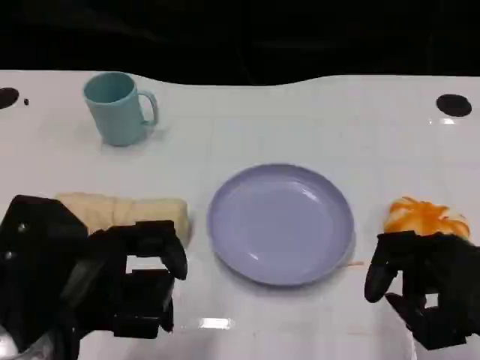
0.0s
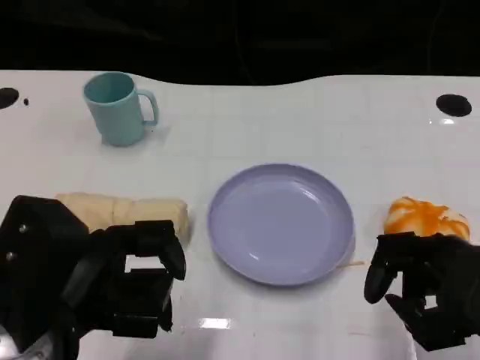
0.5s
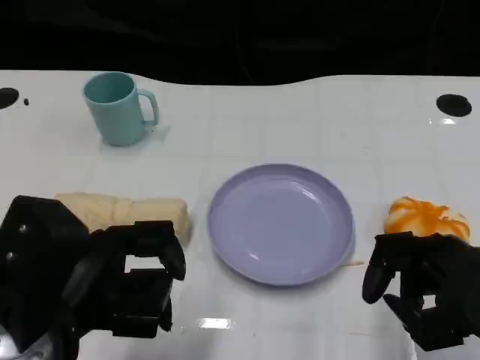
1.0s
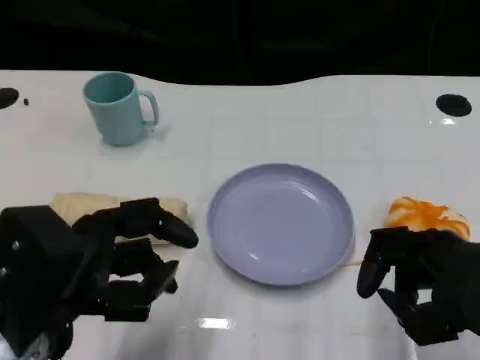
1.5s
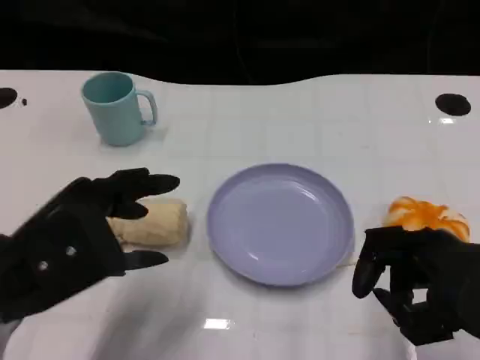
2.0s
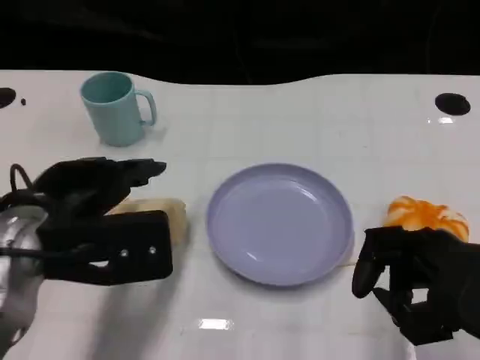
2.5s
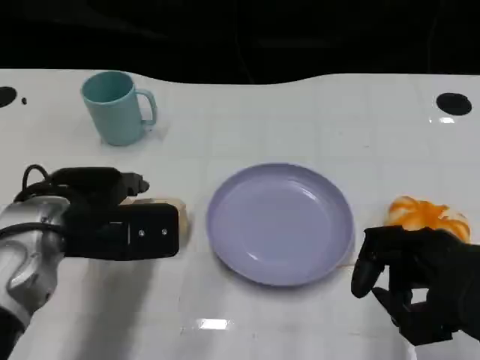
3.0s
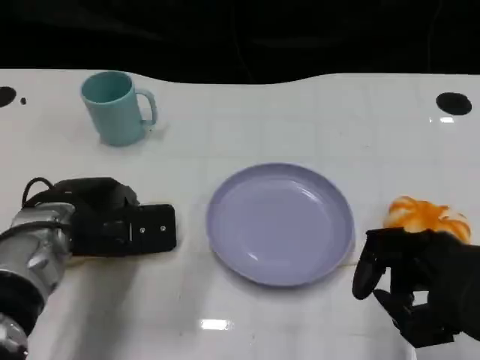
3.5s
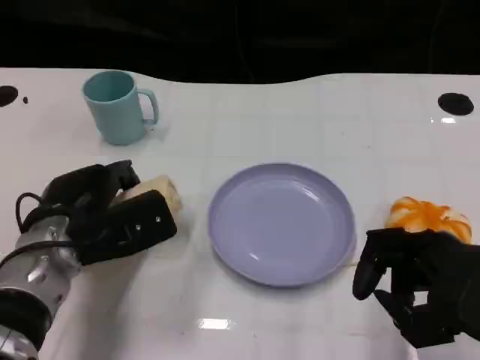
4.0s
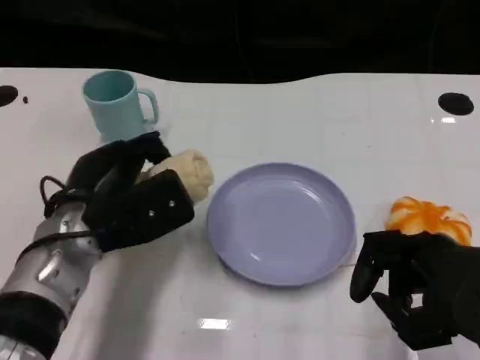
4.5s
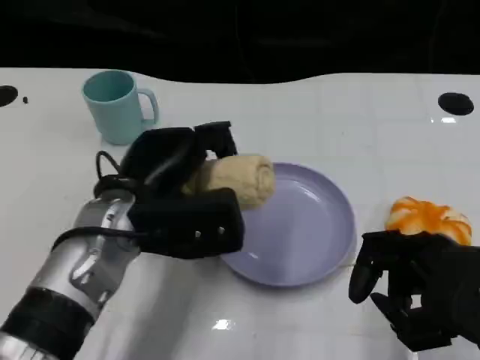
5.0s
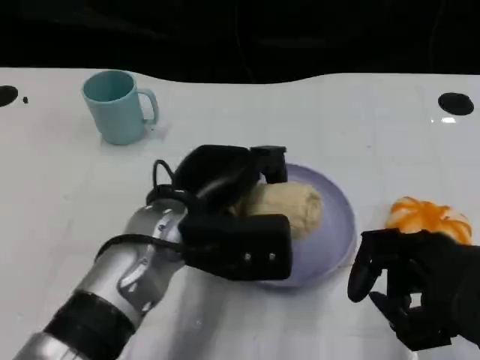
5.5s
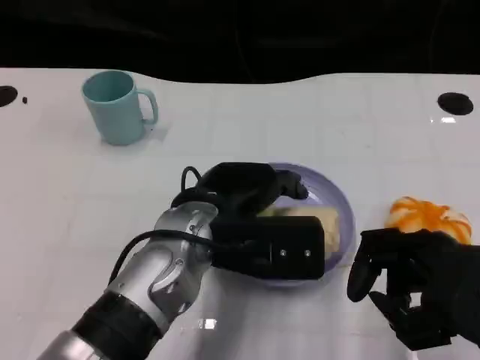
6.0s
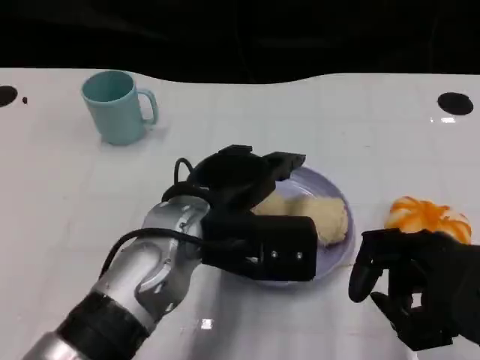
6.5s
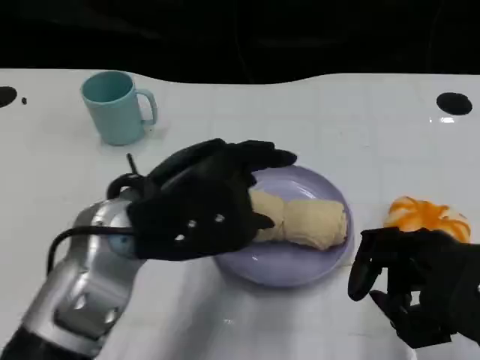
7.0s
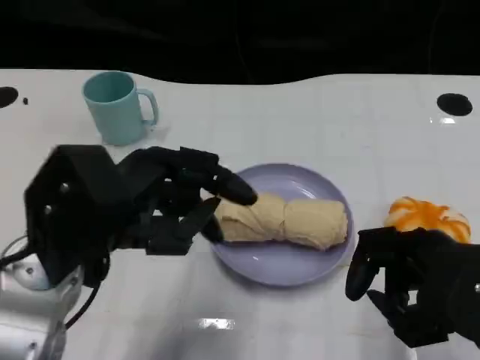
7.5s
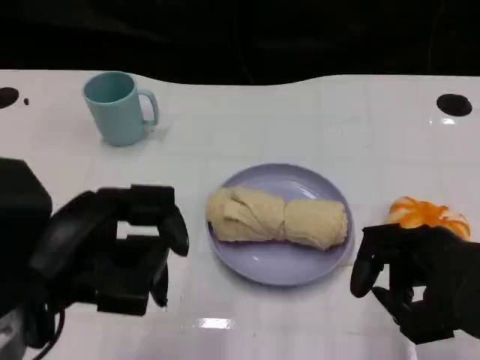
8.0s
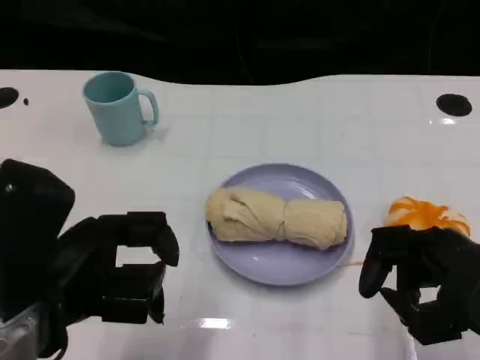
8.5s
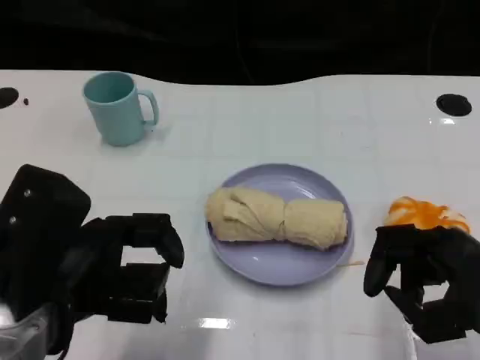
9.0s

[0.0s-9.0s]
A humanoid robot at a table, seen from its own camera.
Task of the whole recording: Grasp the towel on the left side of the plate with the left hand and place it into the plate.
2.0s to 4.5s: The left hand travels forward, downward and to the right by some 10 cm.
4.5s to 7.0s: The left hand is displaced upward by approximately 5 cm, and goes to the right and returns, approximately 10 cm each way.
7.0s to 9.0s: The left hand travels to the left and backward by approximately 10 cm.

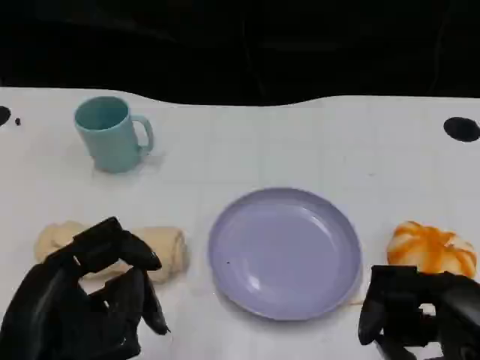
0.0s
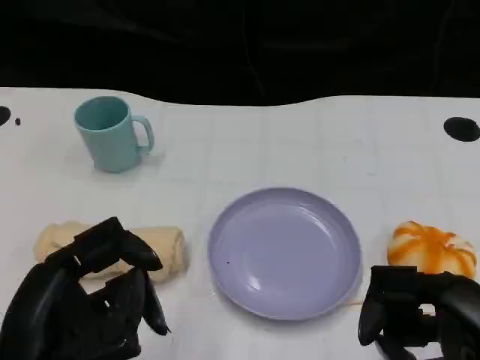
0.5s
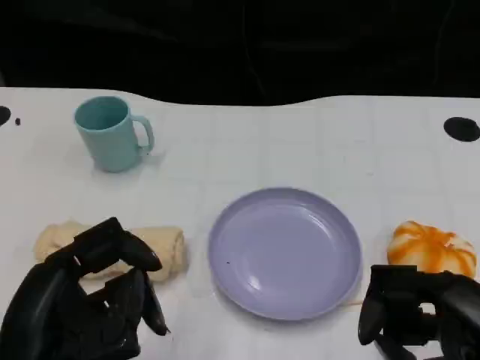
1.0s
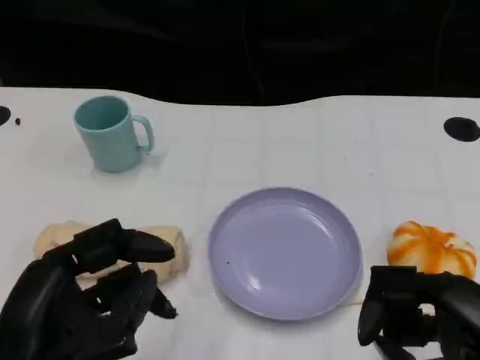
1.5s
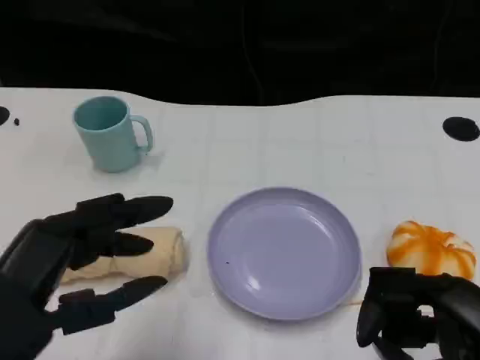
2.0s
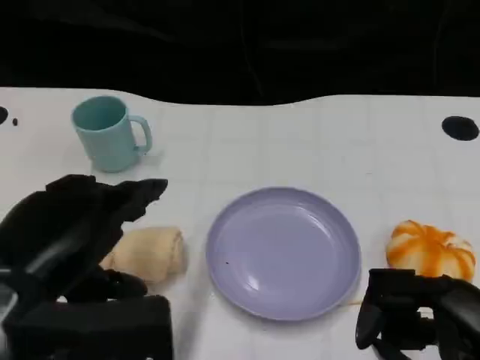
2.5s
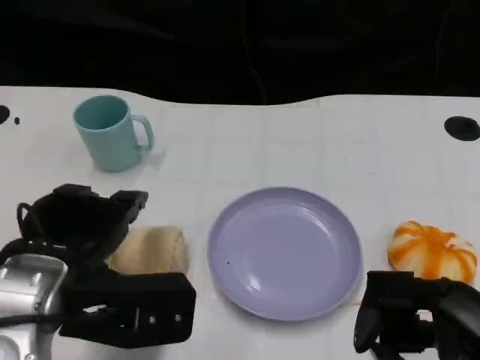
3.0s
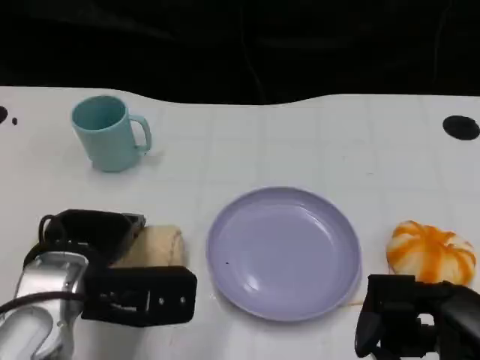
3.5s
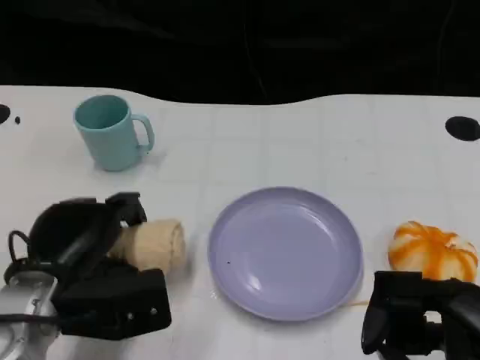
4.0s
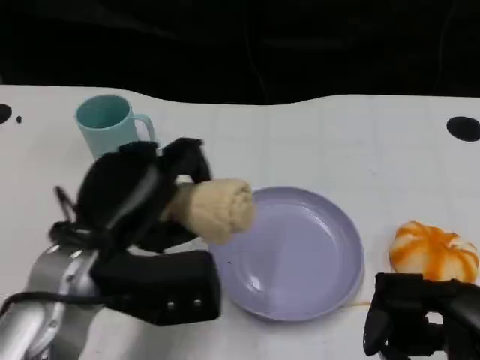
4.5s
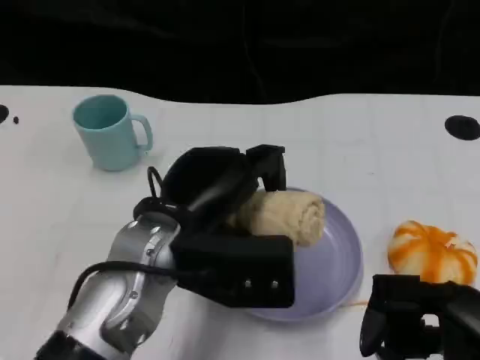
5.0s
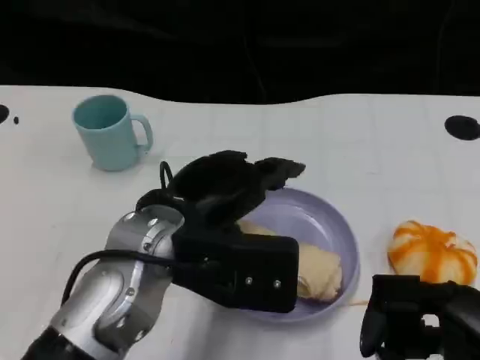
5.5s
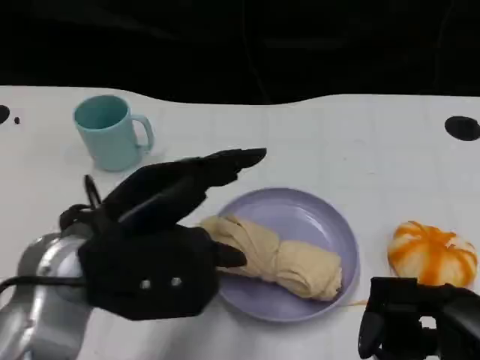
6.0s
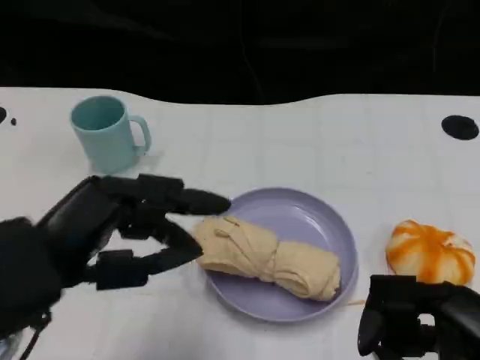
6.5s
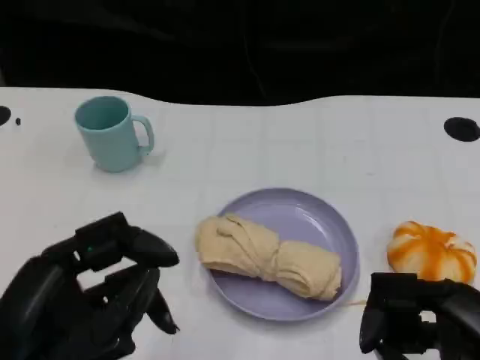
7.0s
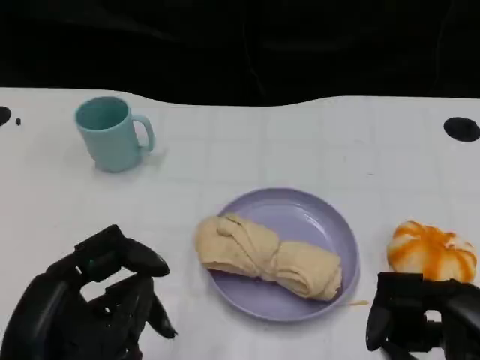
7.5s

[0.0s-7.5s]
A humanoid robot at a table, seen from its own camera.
Task of the whole recording: Grasp the towel on the left side of the plate with the left hand and place it into the plate.
2.0s to 4.0s: The left hand goes approximately 15 cm forward and downward.
4.0s to 5.5s: The left hand moves to the right and upward, roughly 15 cm.
5.5s to 7.5s: The left hand travels backward and to the left by about 15 cm.

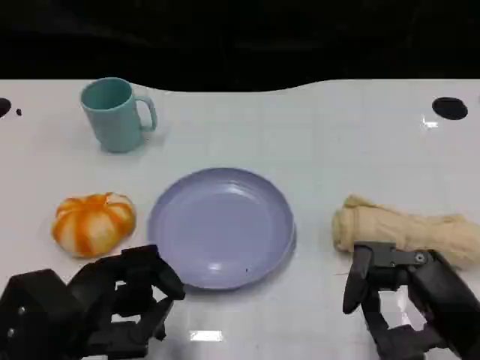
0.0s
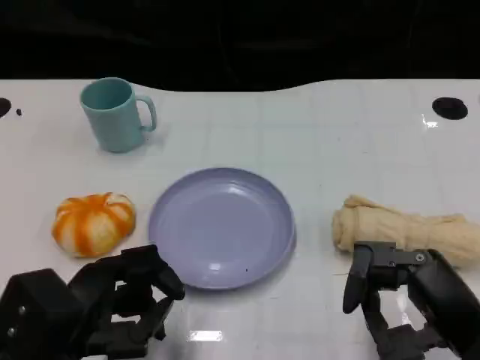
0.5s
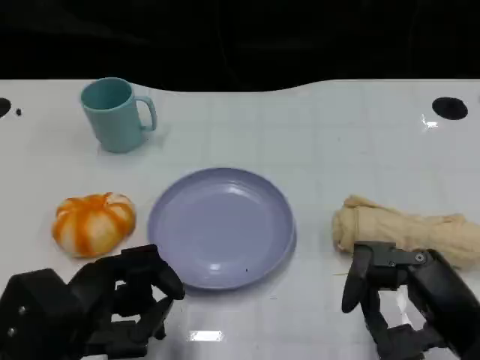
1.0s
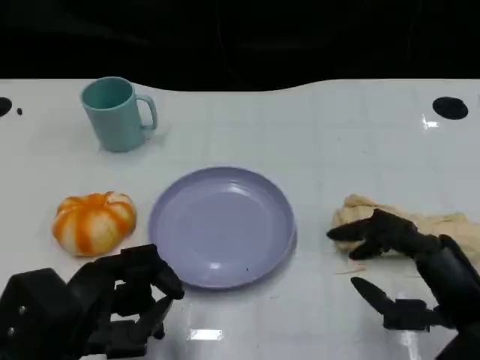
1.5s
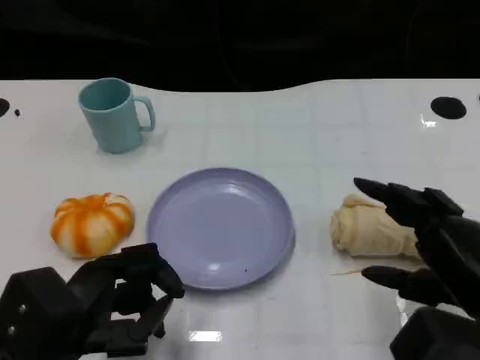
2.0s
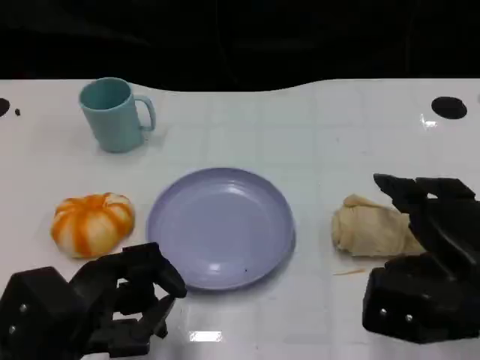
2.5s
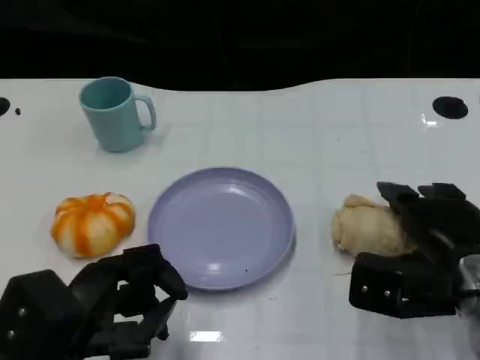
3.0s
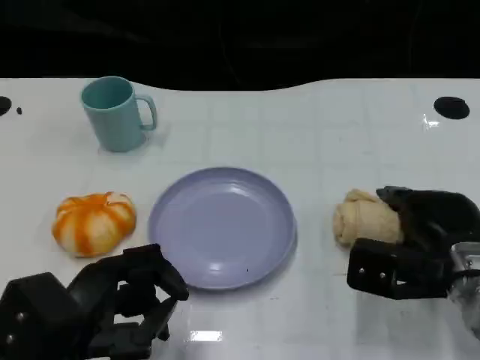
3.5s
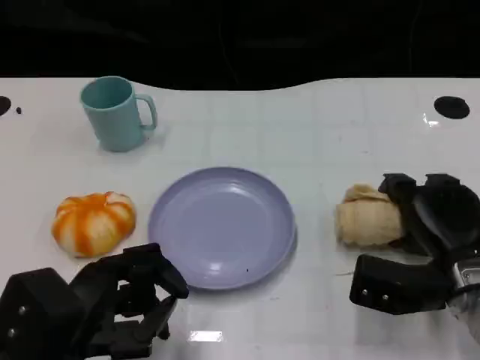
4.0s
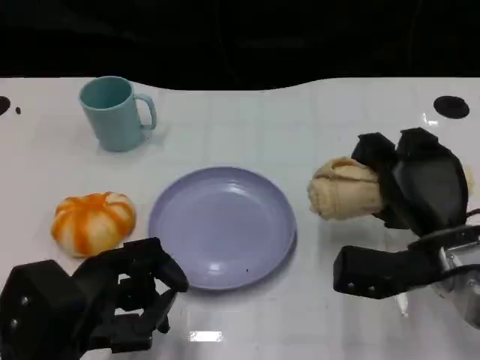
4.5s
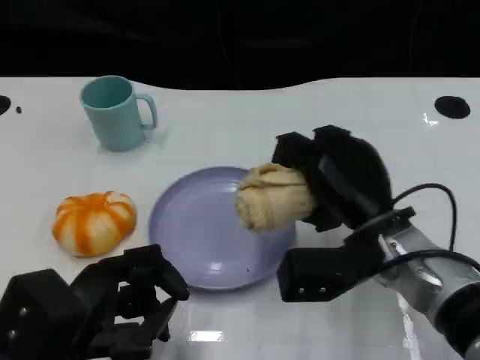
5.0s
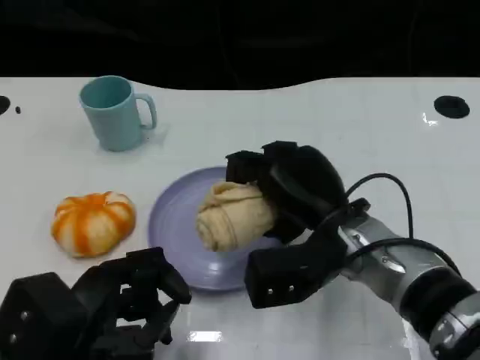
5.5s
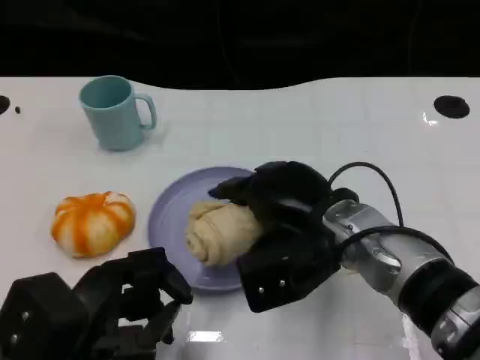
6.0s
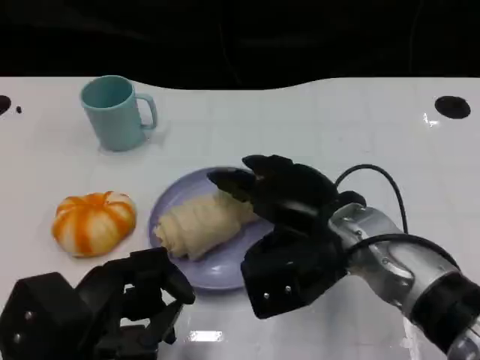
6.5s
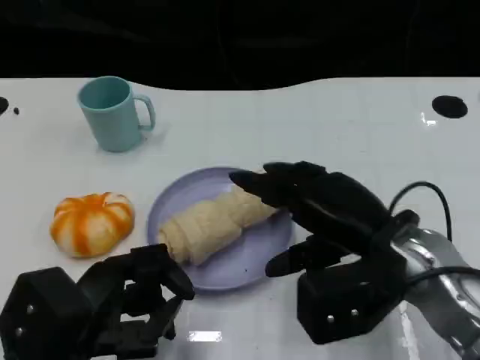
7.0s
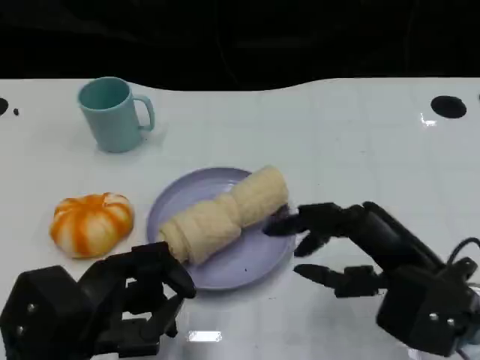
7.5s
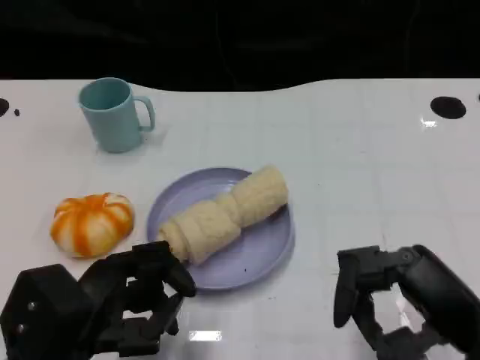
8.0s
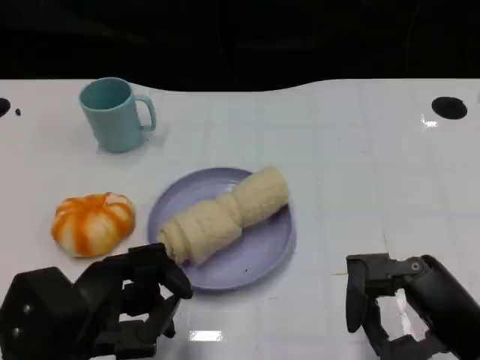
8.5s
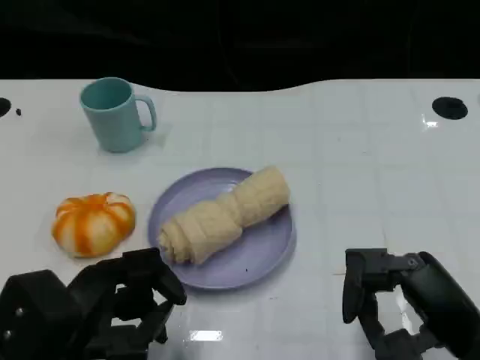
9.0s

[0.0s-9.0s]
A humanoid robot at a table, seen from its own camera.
Task of the whole recording: Grasp the towel on the left side of the plate with the left hand and place it into the plate.
2.0s to 4.5s: The right hand is displaced forward by about 10 cm.
4.5s to 7.0s: The right hand is displaced upward by approximately 5 cm.
7.0s to 9.0s: The right hand is displaced backward and to the right by some 10 cm.
